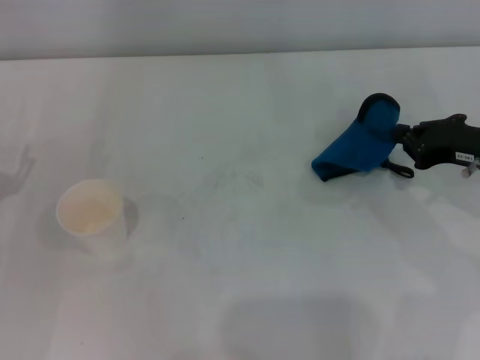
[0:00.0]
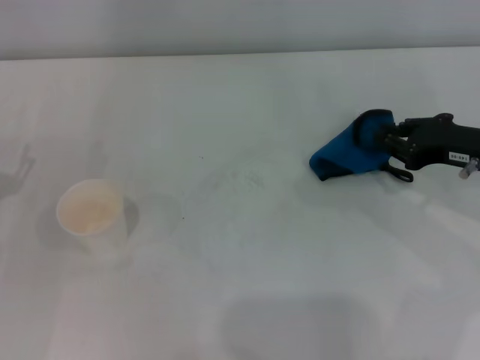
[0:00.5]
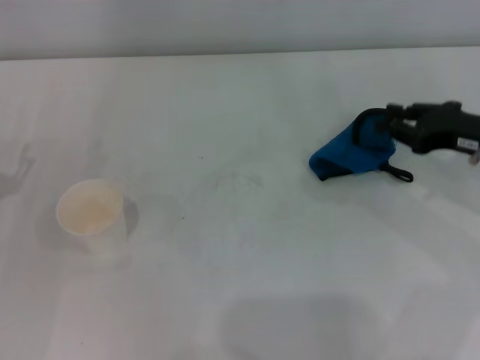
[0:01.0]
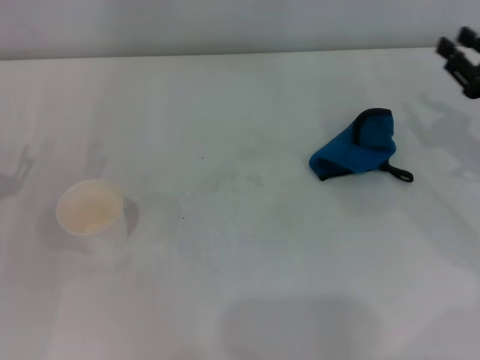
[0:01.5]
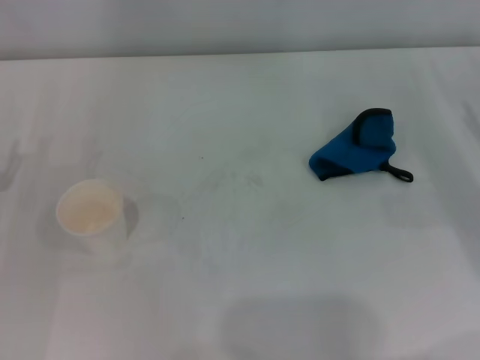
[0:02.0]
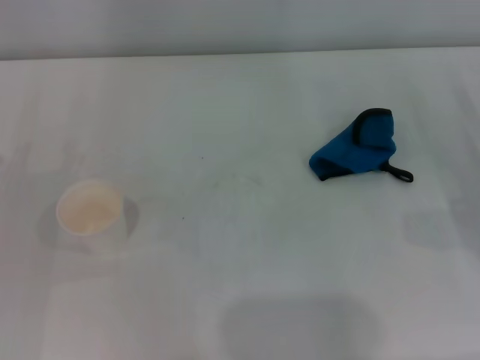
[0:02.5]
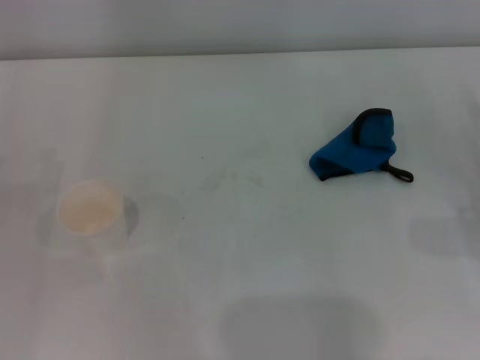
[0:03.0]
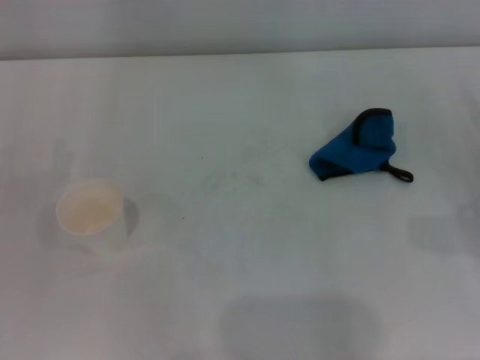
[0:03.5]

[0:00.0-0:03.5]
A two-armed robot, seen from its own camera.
Step, 0:00.0 to 0:00.5: Place the rag on the table with the right gripper.
0:00.0 to 0:02.0: The right gripper heads to the right, covering about 5 cm, and opens its fingers.
